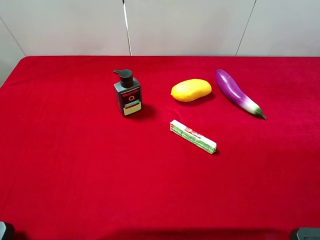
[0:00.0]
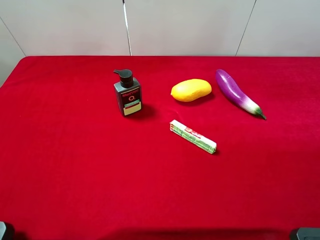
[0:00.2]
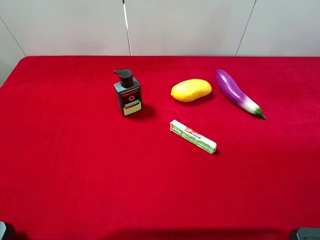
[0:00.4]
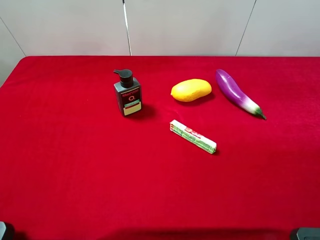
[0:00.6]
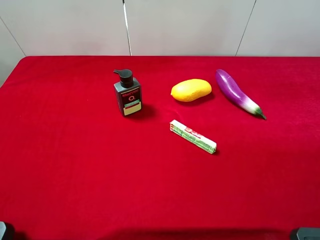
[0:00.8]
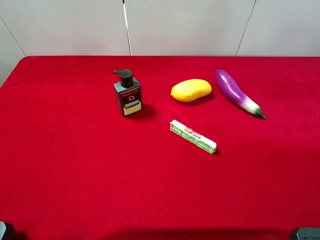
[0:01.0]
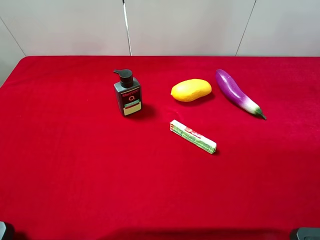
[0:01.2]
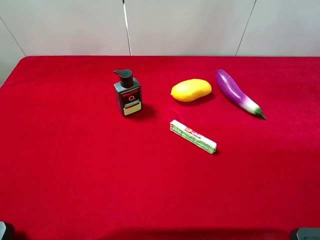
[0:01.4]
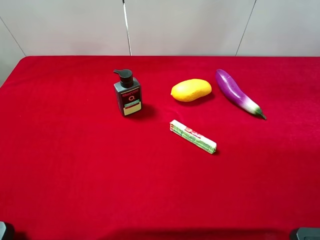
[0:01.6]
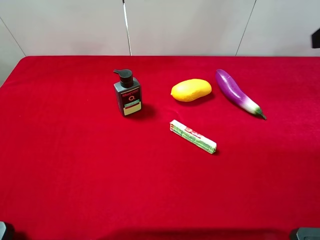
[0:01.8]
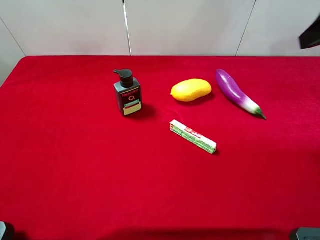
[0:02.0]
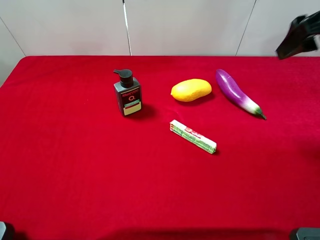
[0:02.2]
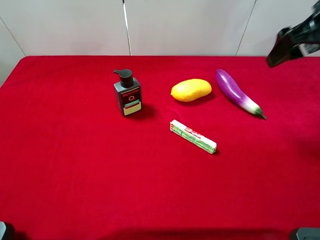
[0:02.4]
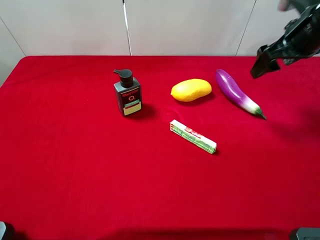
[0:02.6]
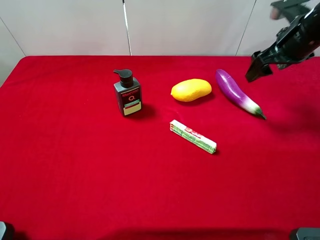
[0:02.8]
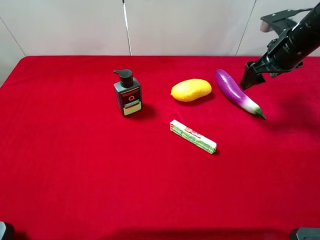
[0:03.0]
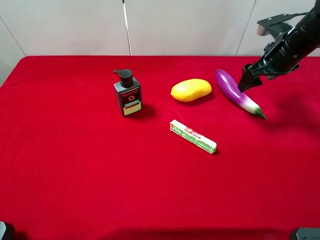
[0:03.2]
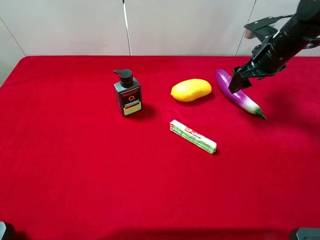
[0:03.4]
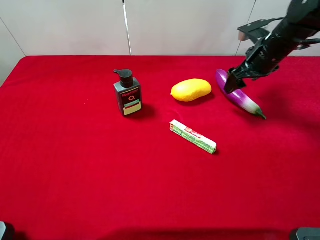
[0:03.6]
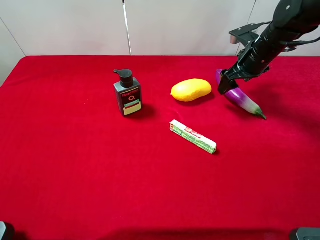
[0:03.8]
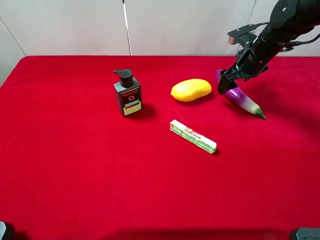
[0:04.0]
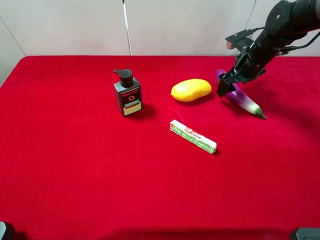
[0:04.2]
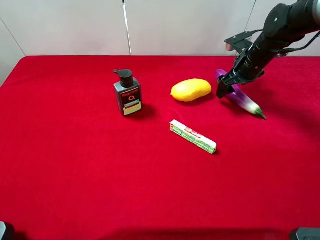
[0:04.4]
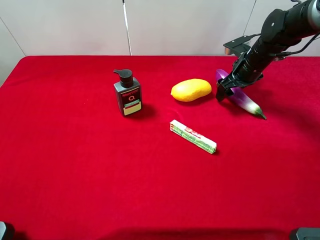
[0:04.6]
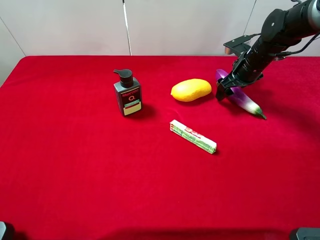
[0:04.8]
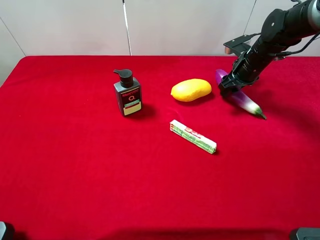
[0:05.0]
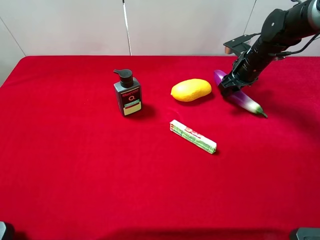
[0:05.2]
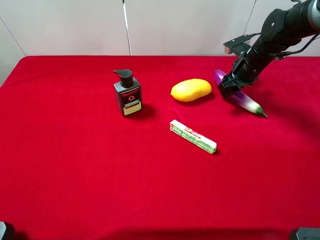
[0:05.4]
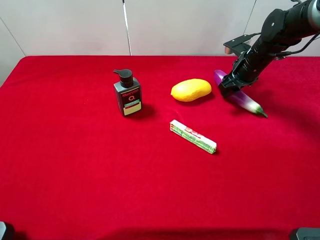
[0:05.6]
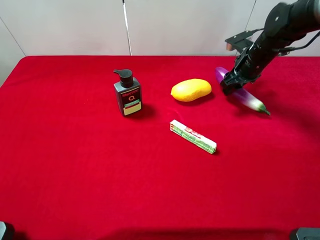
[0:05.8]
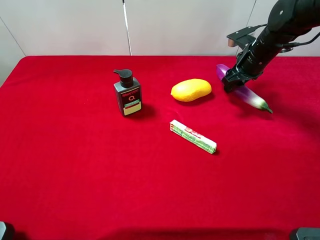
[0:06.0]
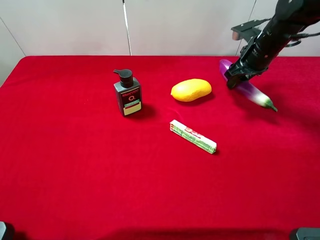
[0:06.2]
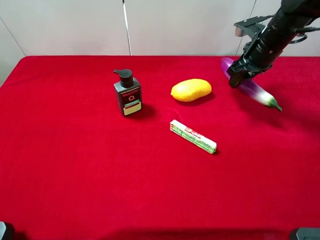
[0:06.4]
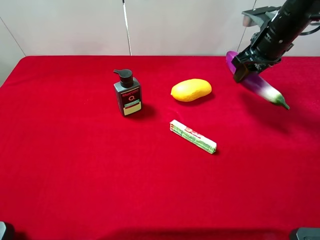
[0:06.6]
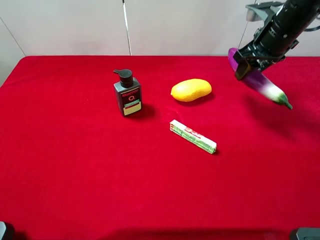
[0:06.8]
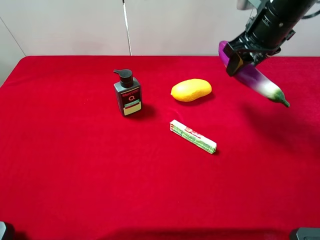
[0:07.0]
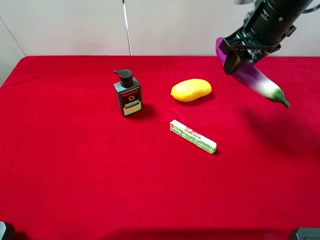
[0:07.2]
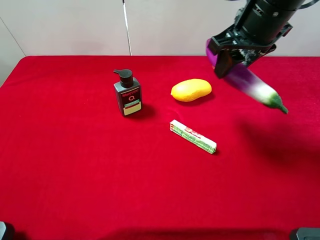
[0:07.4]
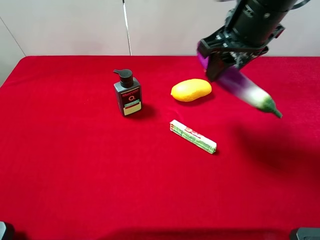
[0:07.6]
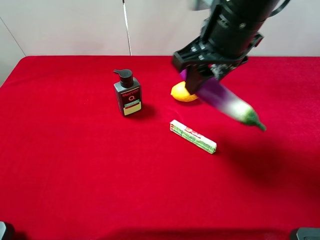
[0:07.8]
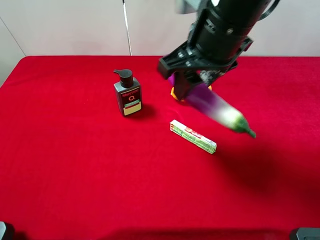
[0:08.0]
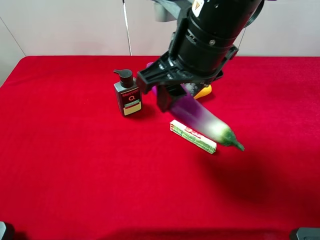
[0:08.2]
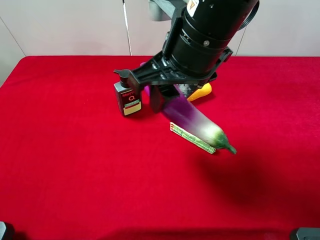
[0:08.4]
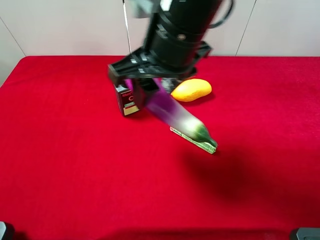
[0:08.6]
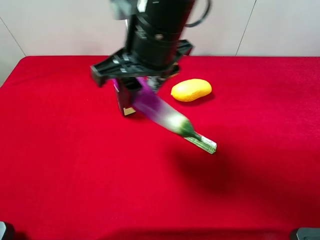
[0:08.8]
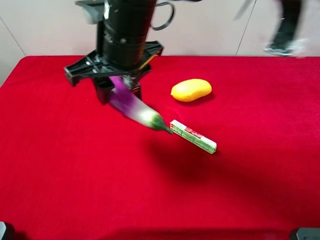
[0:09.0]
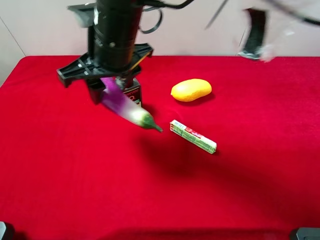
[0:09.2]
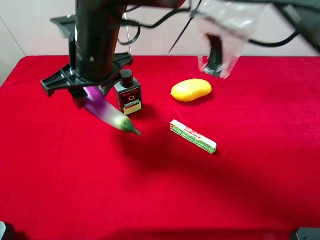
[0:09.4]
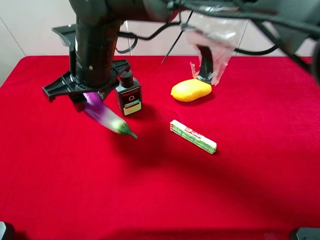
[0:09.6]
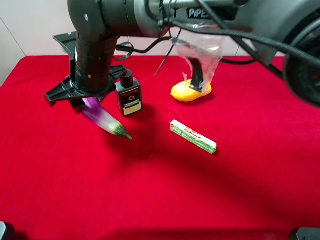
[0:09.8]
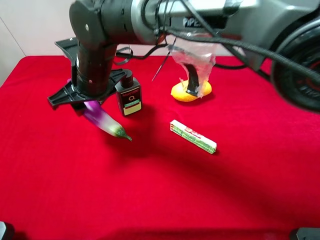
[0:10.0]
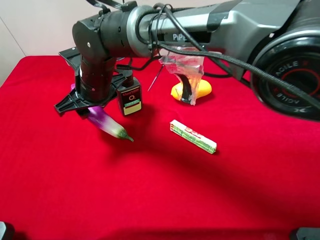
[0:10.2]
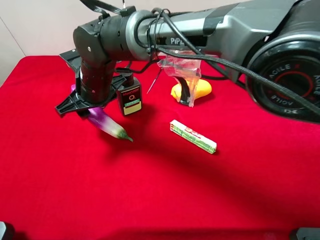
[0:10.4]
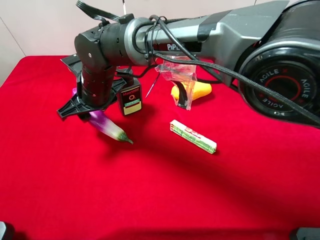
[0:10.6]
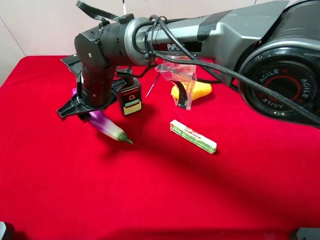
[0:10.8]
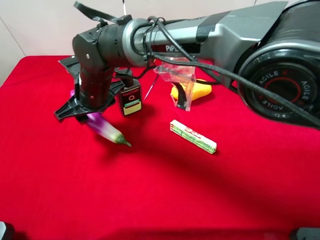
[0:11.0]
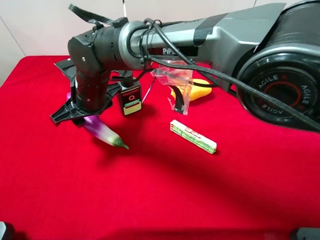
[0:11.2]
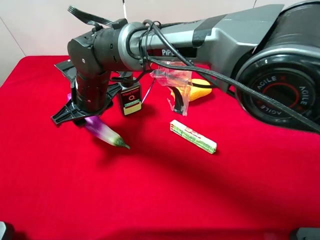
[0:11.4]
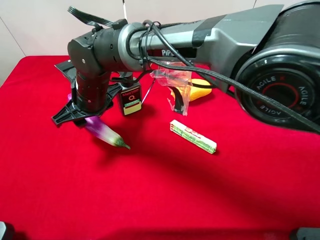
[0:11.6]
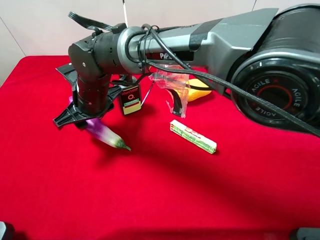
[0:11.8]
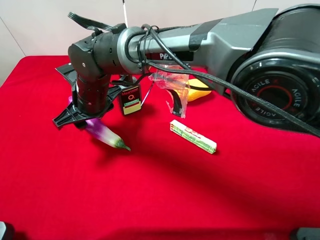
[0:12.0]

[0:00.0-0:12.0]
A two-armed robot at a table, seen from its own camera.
Task of the whole recording: the gripper move the object.
Step, 0:00.0 to 0:05.2: Grasp the eggplant with the right gripper.
0:01.6 to 0:03.0: The right gripper moves forward and downward, approximately 25 cm.
0:03.0 to 0:04.4: The right gripper heads downward and forward, covering some 10 cm.
0:04.4 to 0:06.0: The right gripper closes its fingers.
0:06.0 to 0:07.6: The right gripper travels upward, backward and to the left by roughly 25 cm.
0:07.6 to 0:09.0: The right gripper shifts some 15 cm to the left.
0:09.0 to 0:10.4: The right gripper is displaced downward and to the left by approximately 15 cm.

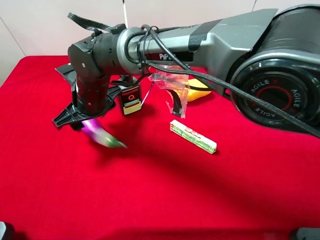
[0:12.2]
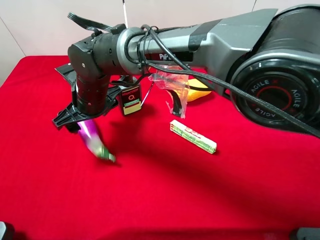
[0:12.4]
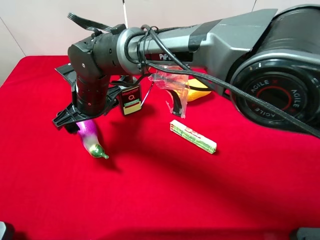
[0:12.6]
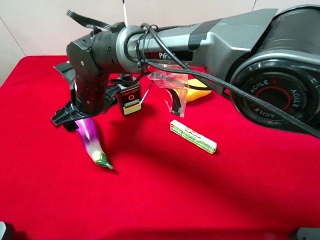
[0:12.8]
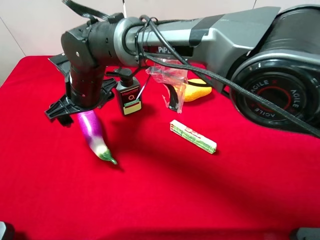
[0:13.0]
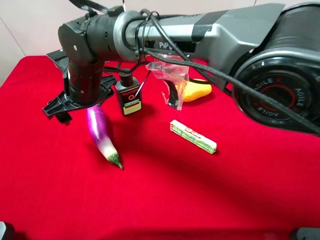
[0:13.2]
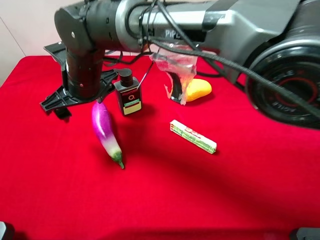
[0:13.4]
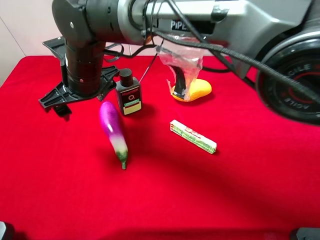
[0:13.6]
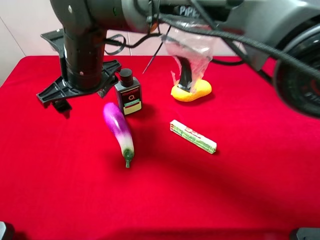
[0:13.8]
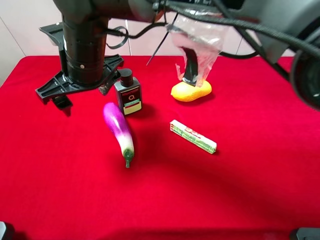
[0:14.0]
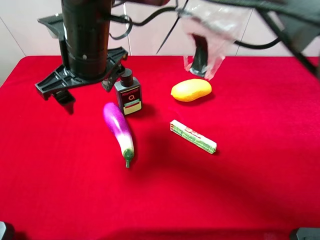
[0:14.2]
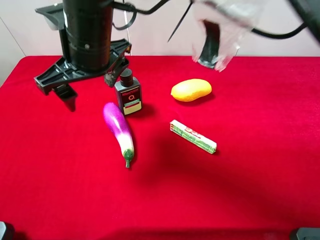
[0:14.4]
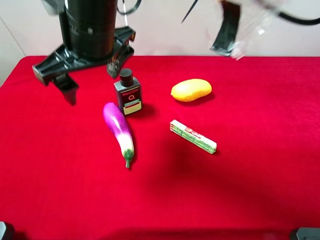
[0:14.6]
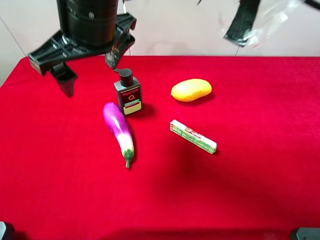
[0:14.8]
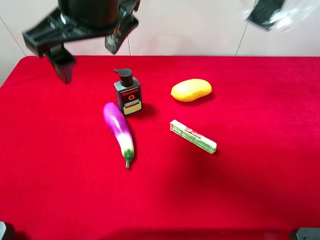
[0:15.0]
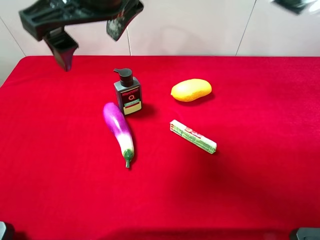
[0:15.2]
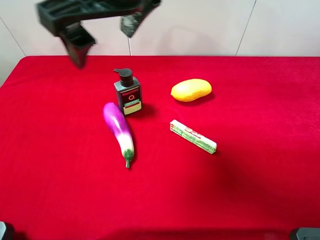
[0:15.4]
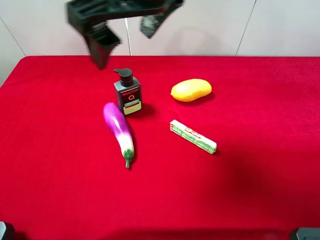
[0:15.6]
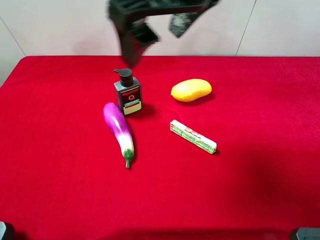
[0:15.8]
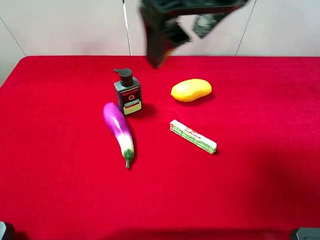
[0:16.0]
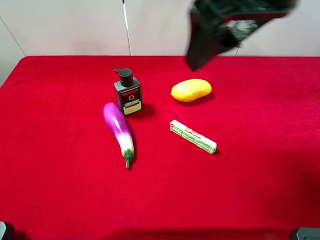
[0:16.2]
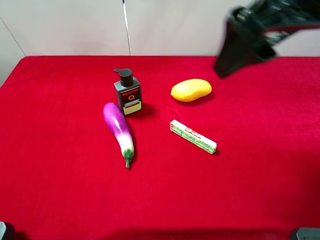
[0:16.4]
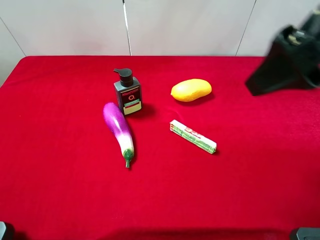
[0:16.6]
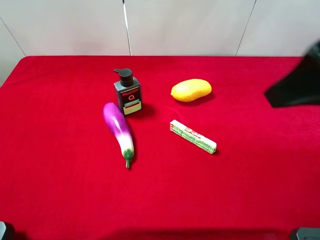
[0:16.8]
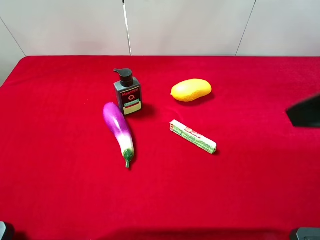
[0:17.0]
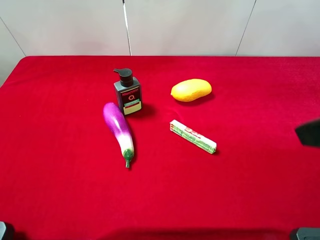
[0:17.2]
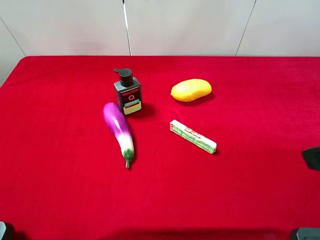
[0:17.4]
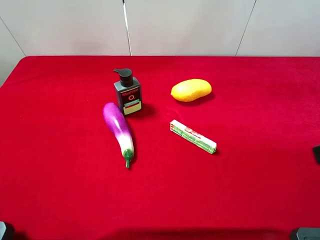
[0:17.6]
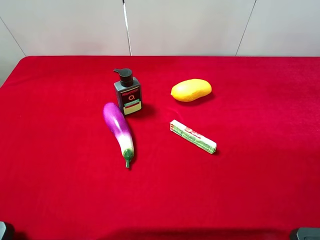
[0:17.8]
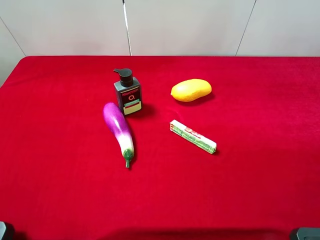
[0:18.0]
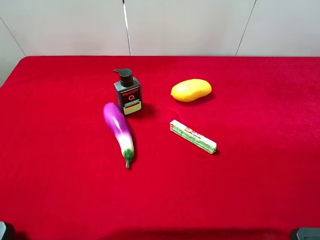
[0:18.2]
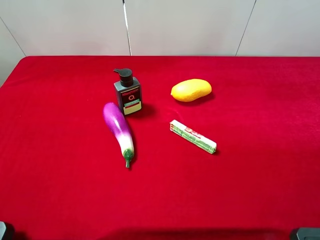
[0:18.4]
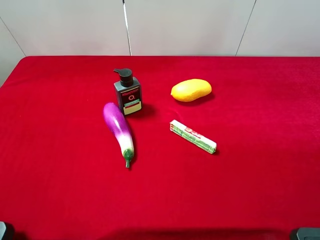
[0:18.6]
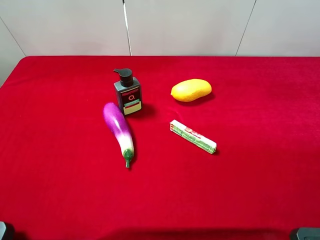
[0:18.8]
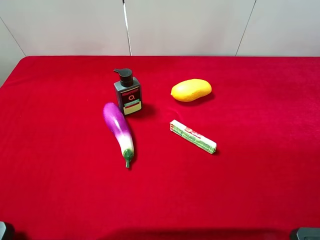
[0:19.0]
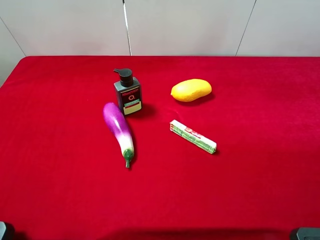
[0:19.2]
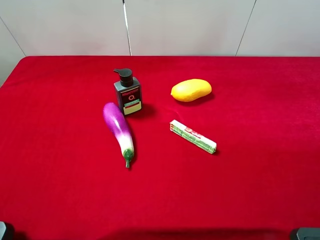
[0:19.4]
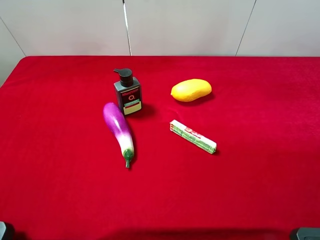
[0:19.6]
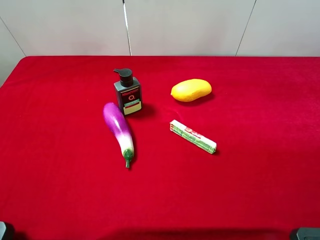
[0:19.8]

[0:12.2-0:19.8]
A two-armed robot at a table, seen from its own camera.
Task of the whole recording: the gripper move the object.
0:12.2 to 0:13.8: The right gripper heads upward, covering some 10 cm.
0:13.8 to 0:15.2: The right gripper shifts roughly 15 cm upward and to the right.
0:15.2 to 0:16.8: The right gripper travels to the right by roughly 25 cm.
0:16.8 to 0:18.2: The right gripper is displaced backward, to the right and downward by some 20 cm.

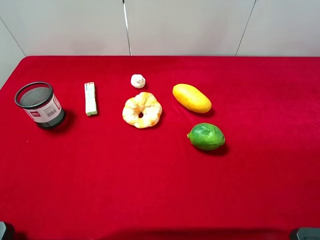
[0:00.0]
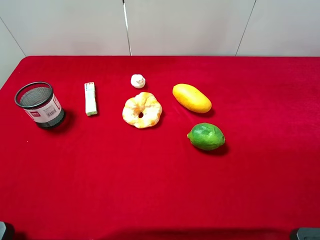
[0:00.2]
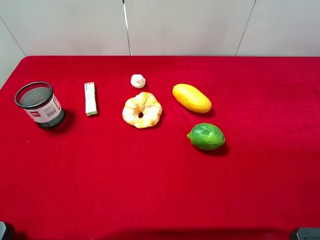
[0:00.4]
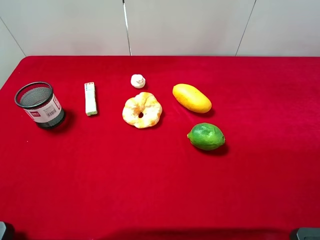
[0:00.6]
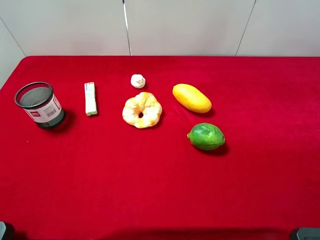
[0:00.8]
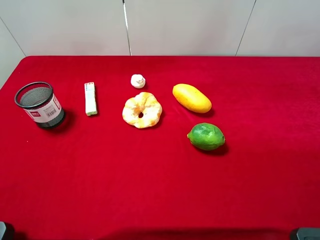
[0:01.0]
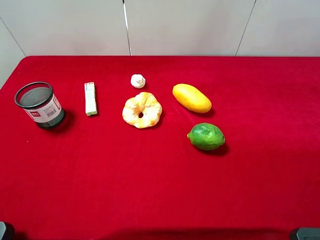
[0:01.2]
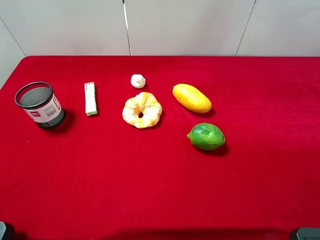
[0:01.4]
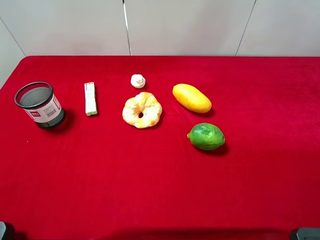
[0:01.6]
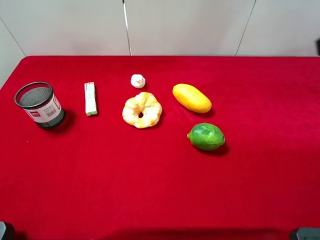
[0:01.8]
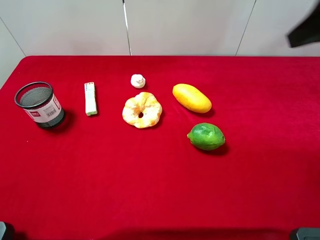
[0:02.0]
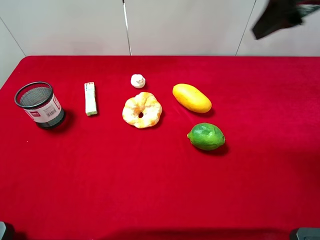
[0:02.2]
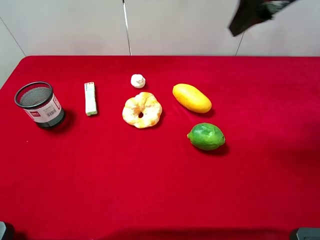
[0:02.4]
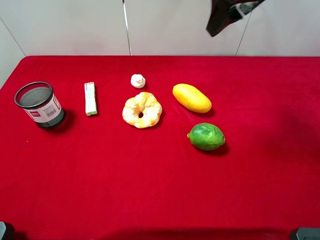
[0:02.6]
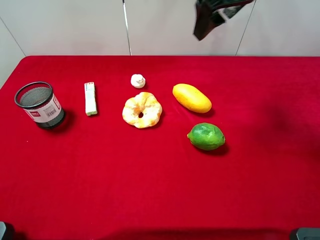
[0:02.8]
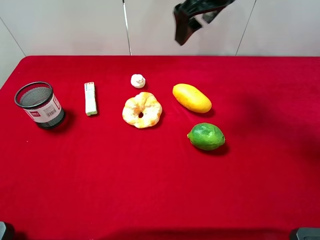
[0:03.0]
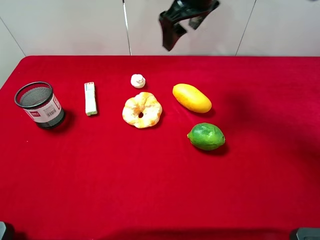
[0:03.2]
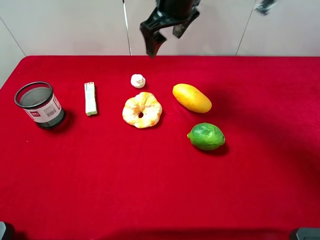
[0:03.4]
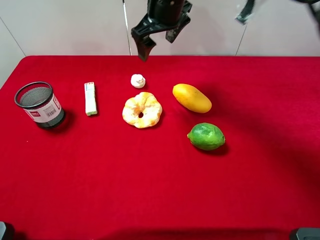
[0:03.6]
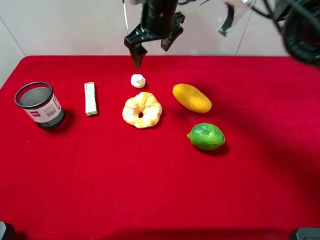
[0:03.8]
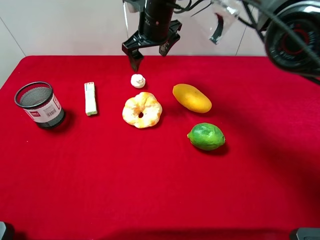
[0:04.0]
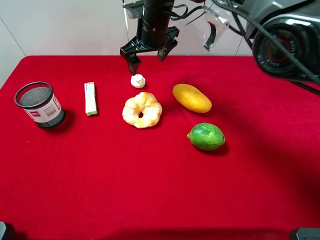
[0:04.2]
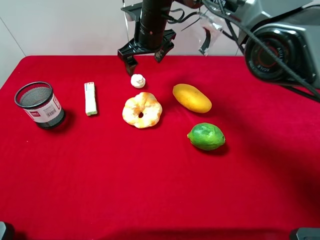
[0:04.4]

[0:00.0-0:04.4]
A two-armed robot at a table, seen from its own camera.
Task of the whole recording: the gripper move the object.
0:01.4 to 0:03.0: The right gripper moves forward and to the left, roughly 35 cm.
0:03.0 to 0:04.4: The right gripper moves to the left, downward and forward, roughly 20 cm.
